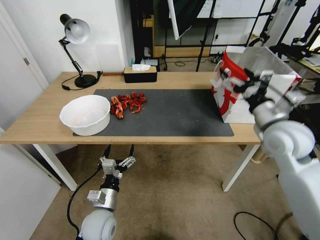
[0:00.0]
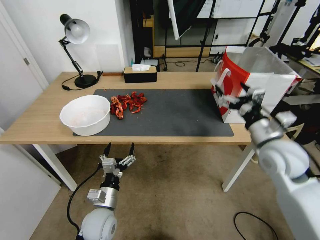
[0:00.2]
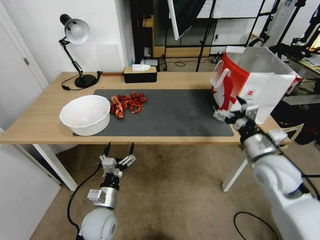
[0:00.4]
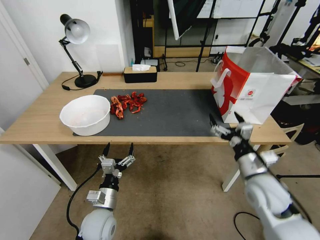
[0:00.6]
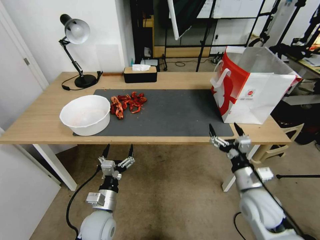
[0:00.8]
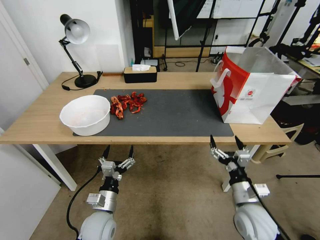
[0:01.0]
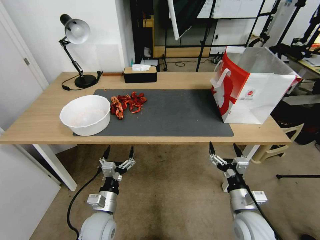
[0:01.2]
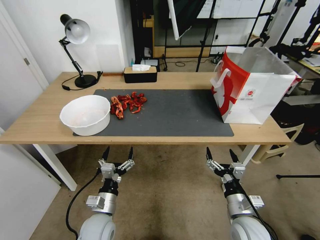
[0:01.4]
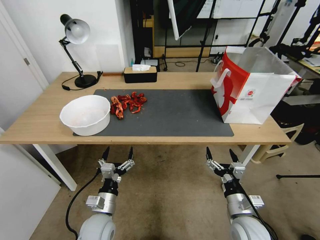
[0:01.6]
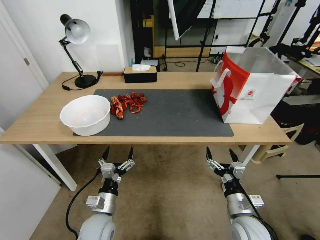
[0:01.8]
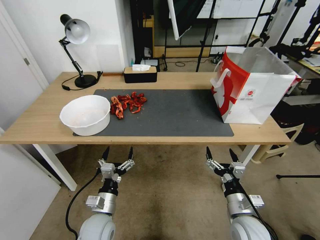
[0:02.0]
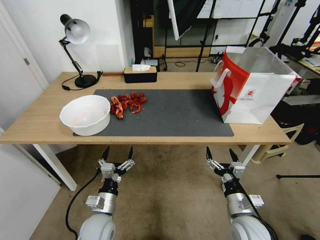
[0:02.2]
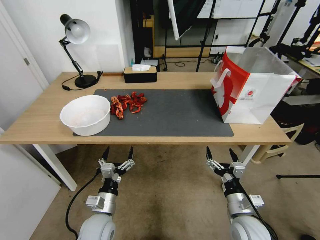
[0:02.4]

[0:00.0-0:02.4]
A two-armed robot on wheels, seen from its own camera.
Task of the whole recording: Close the takeout container lid, then place the container into the takeout bag.
0:00.0 to 0:01.2: The right gripper shifts roughly 30 cm downward and backward.
0:01.2 to 0:02.4: Both grippers stay about where they are.
